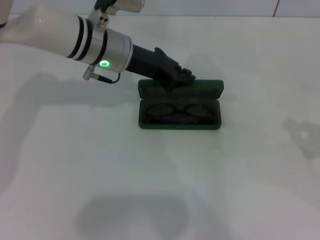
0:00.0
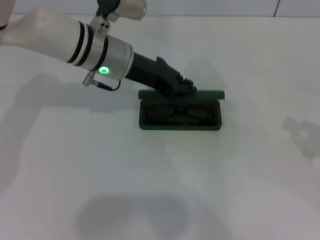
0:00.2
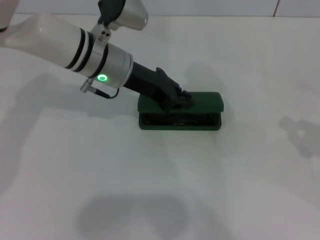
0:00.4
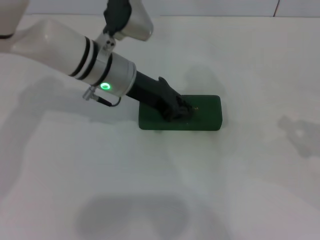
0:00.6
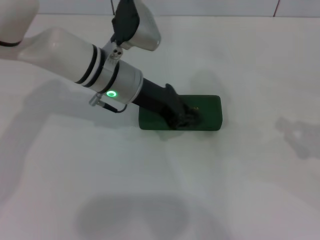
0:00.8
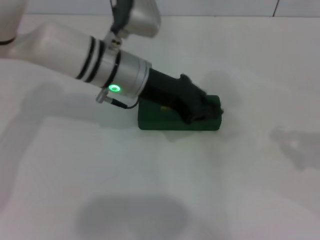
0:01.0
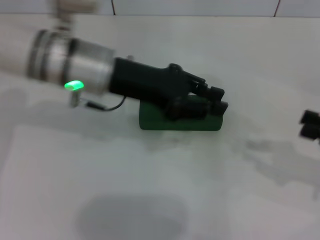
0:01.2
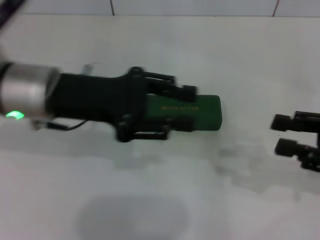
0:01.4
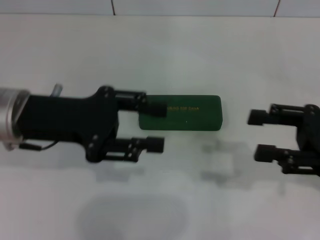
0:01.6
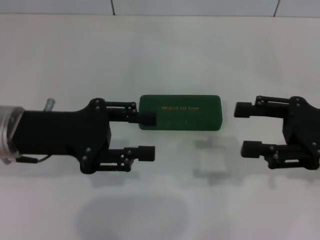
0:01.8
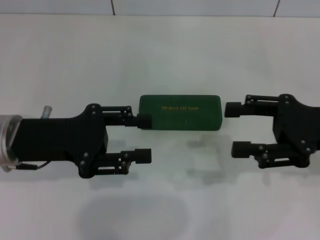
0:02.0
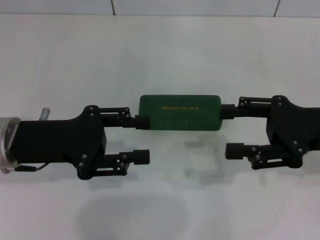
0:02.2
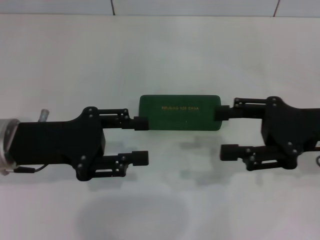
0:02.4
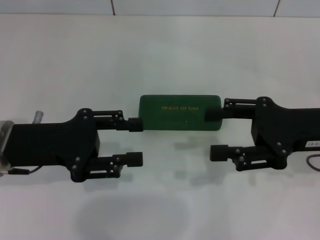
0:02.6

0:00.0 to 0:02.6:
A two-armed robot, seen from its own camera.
0:00.0 to 0:01.2: The left gripper travels backward by roughly 5 cm.
0:01.2 to 0:02.6: The left gripper shifts approximately 15 cm to the left, backward and downward, and opens up, while the right gripper heads to the left, covering some 10 cm, and opens up.

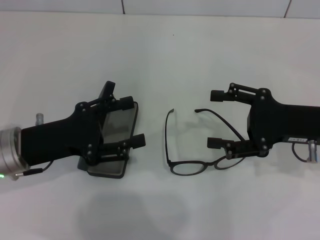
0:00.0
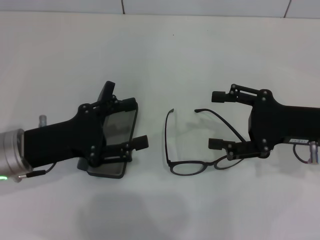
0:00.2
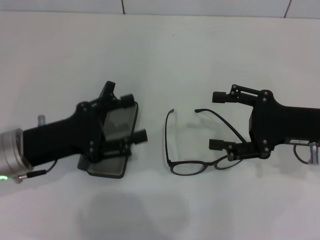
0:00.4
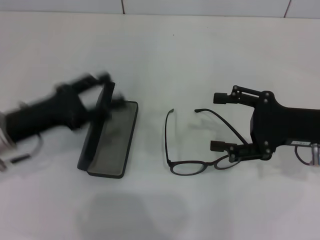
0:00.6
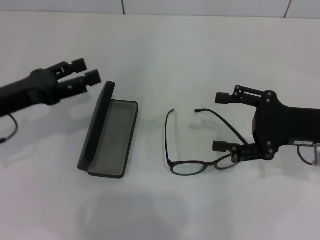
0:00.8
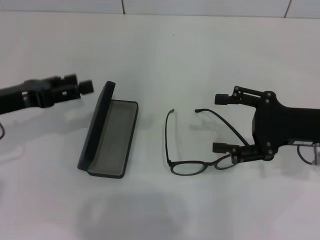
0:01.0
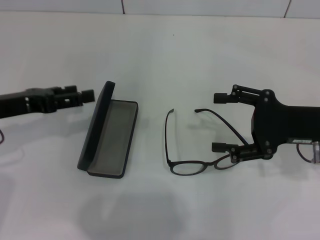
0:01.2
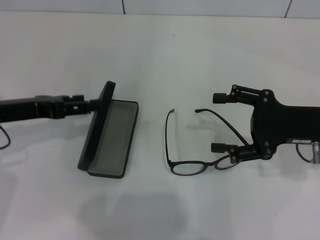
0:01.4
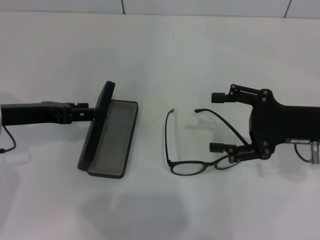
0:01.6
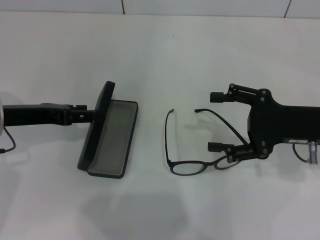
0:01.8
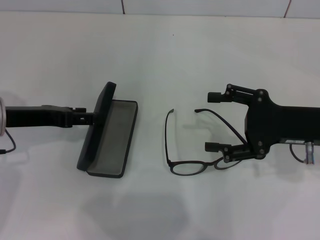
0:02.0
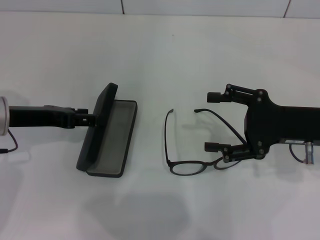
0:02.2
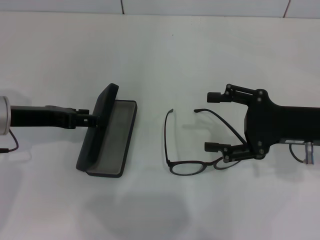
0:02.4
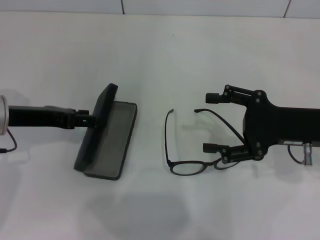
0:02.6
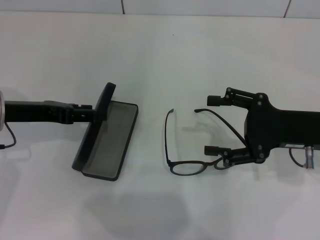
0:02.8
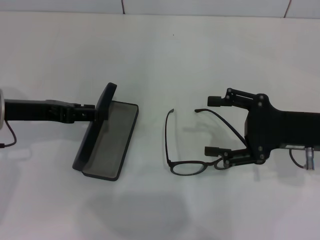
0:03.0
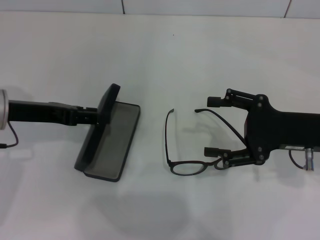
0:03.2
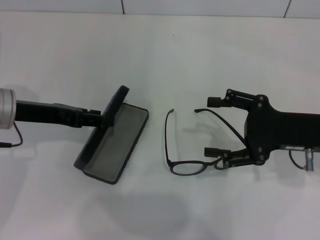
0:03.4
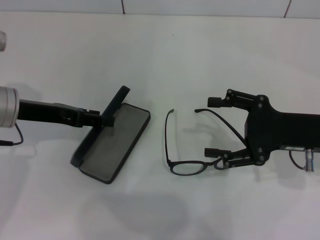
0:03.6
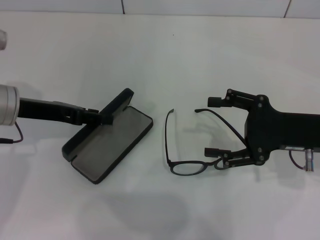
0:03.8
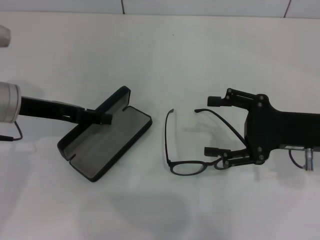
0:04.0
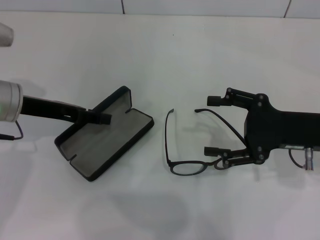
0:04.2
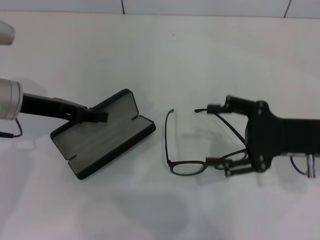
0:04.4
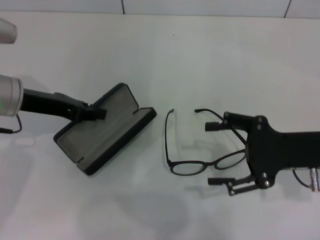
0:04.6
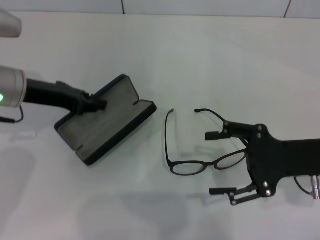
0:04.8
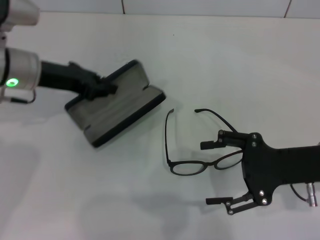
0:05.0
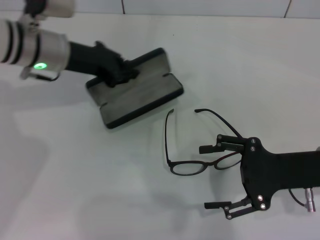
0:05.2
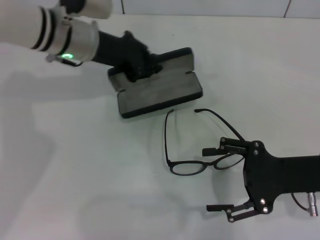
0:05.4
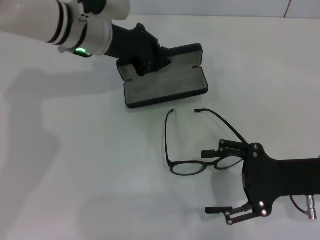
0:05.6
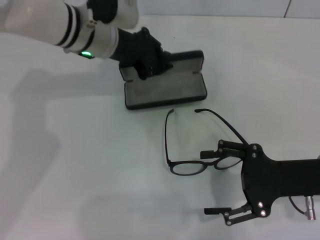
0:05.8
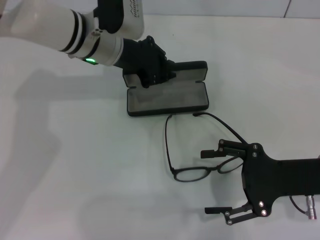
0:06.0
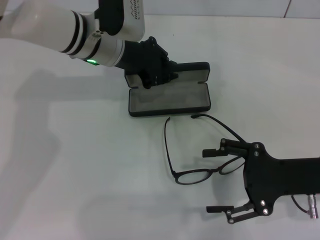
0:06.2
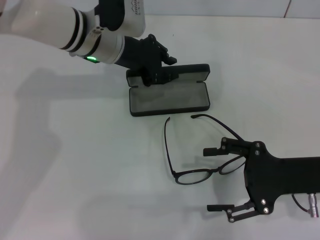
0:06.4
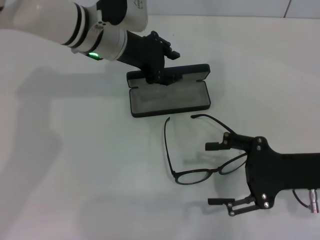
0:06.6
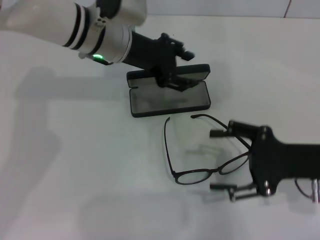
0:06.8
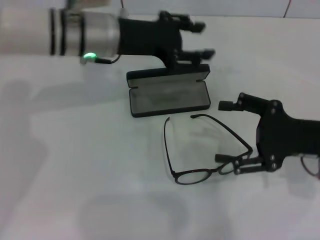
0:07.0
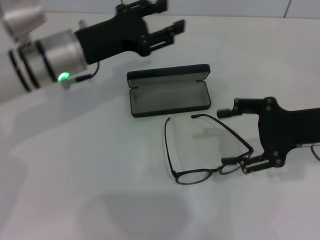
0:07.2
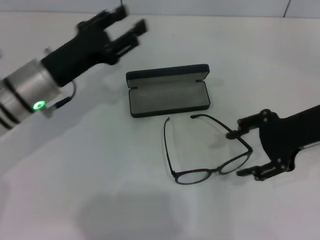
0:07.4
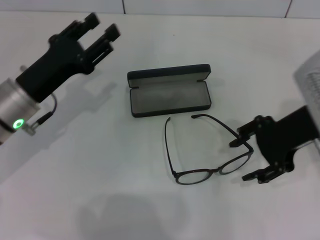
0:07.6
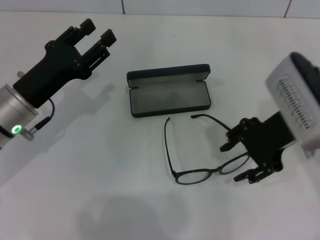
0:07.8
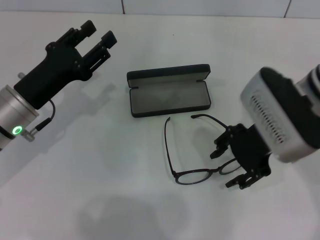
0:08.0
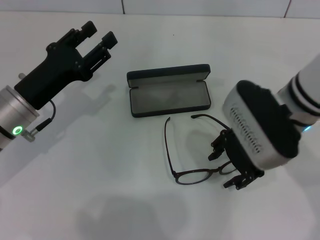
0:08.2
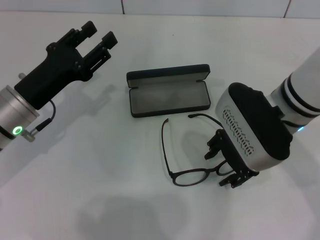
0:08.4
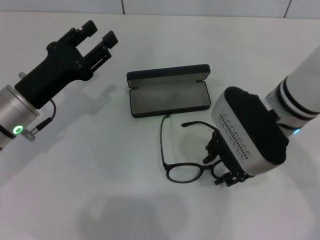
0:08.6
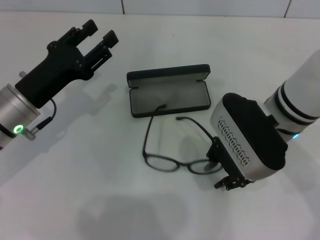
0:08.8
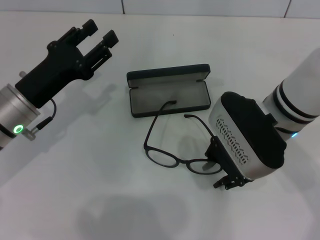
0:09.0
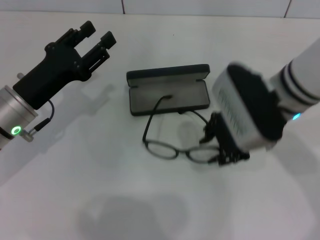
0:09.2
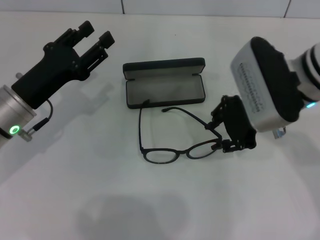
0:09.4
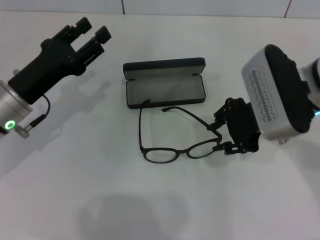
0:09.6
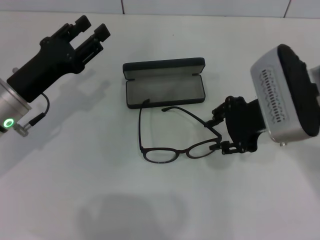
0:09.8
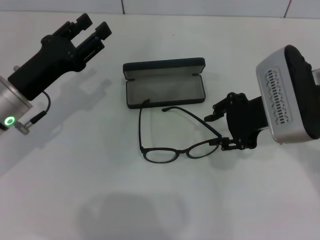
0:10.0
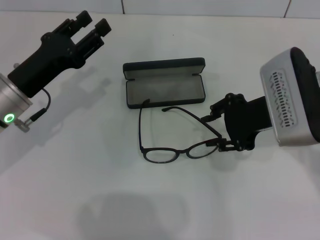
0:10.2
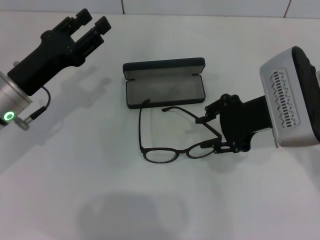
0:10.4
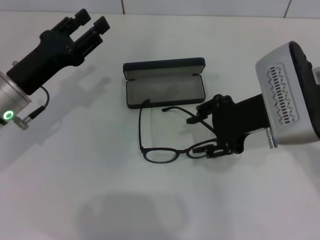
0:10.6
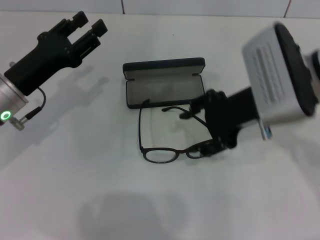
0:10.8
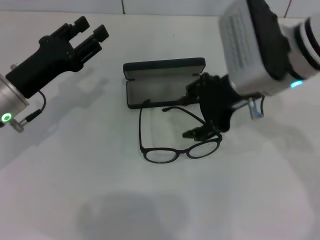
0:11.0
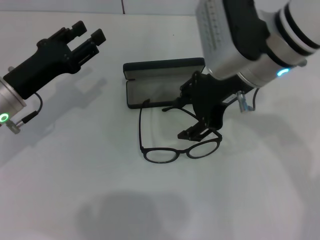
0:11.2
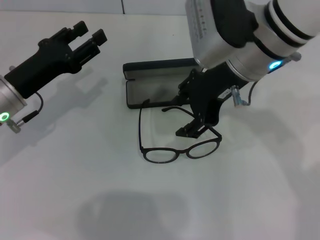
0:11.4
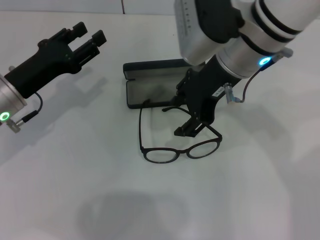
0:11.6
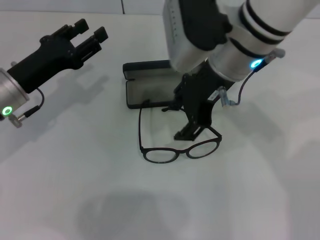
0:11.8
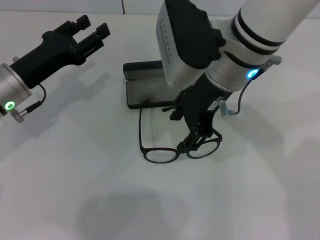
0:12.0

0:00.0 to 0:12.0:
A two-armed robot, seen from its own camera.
Step, 0:00.0 to 0:04.4: Grab the glasses case with your left hand.
Step, 0:04.6 to 0:06.4: Place the glasses case in the center of the table with your left hand.
0:00.0 to 0:01.6: The left gripper ends up approximately 5 cm from where it was.
0:01.6 to 0:04.4: The grippers stay close to where they were, moving slightly.
0:04.4 to 0:06.0: The left gripper heads to the right and forward, covering some 15 cm, and closes its fingers.
0:06.0 to 0:07.6: The right gripper travels upward and forward by some 10 cm. Meanwhile the left gripper shifts some 15 cm backward, to the left and downward, and opens up.
0:07.6 to 0:09.0: The right gripper is displaced to the left by about 10 cm, and closes its fingers.
0:09.0 to 0:10.4: The right gripper ends up roughly 5 cm from where it was.
0:10.4 to 0:12.0: The right gripper is displaced to the left and upward by roughly 10 cm.

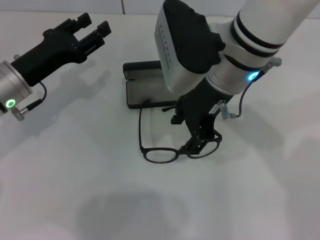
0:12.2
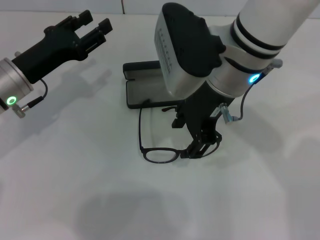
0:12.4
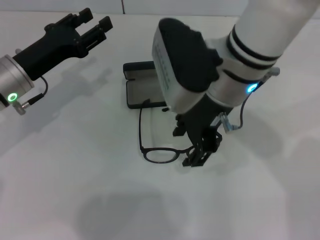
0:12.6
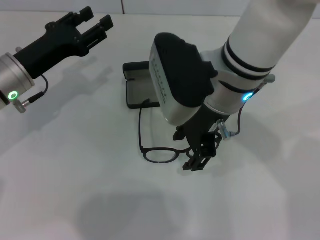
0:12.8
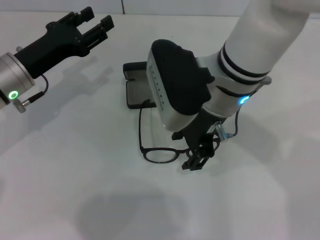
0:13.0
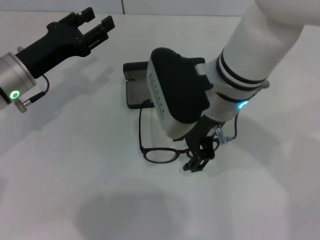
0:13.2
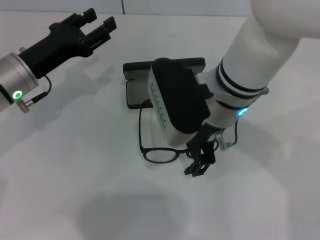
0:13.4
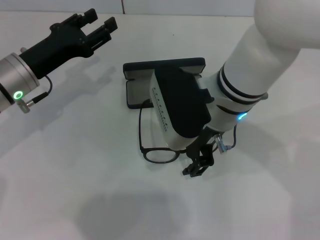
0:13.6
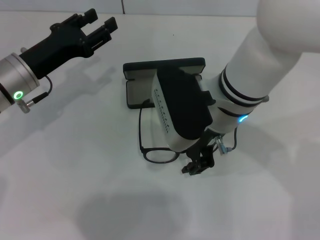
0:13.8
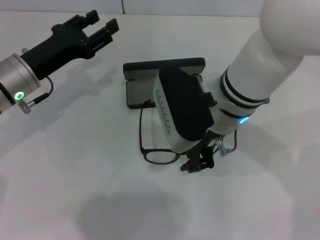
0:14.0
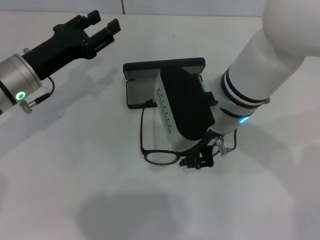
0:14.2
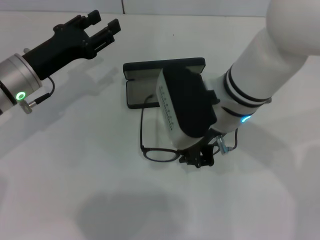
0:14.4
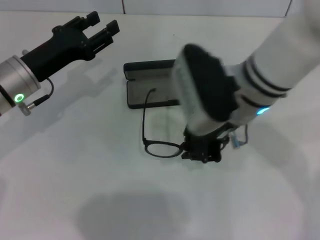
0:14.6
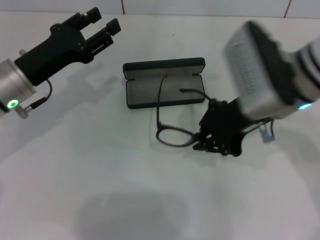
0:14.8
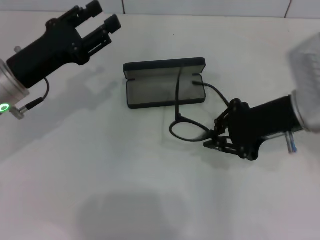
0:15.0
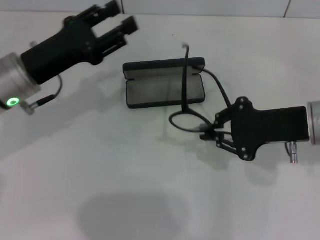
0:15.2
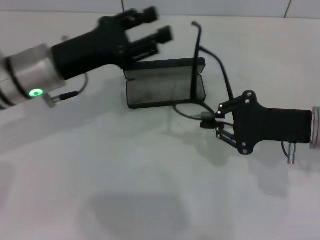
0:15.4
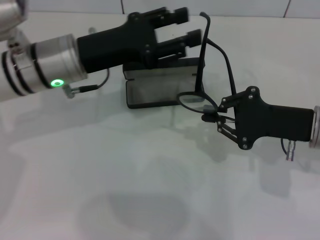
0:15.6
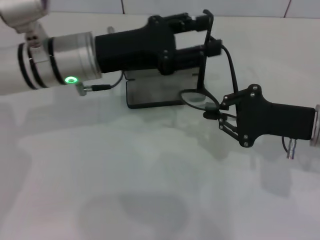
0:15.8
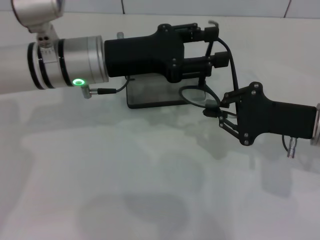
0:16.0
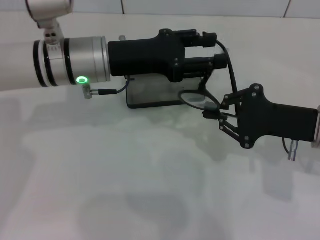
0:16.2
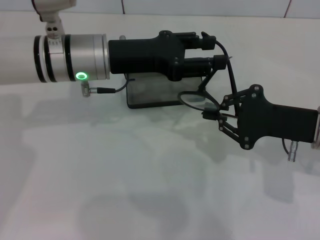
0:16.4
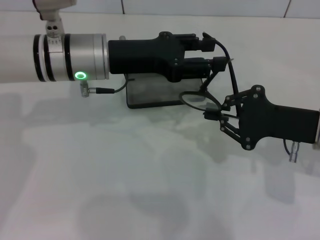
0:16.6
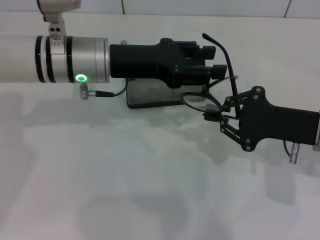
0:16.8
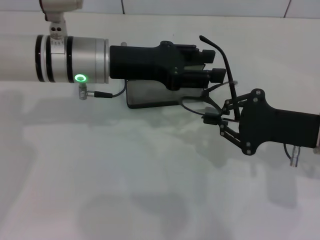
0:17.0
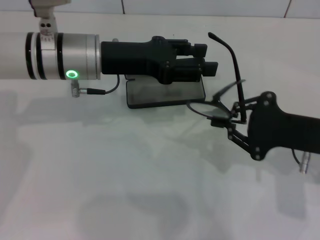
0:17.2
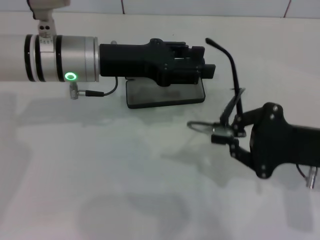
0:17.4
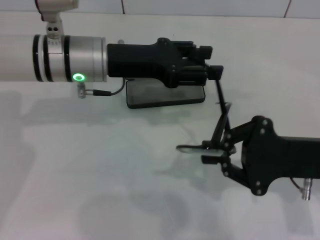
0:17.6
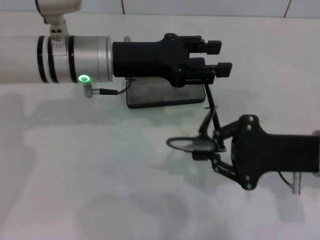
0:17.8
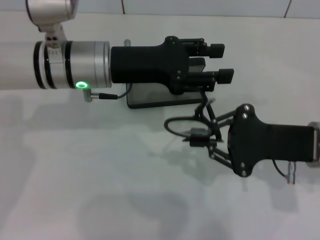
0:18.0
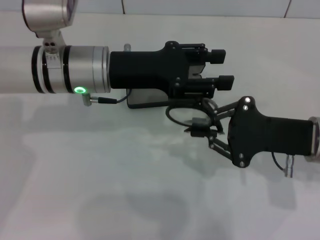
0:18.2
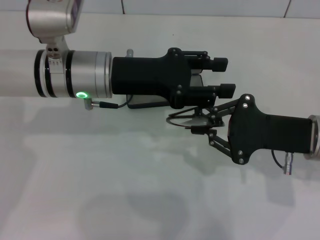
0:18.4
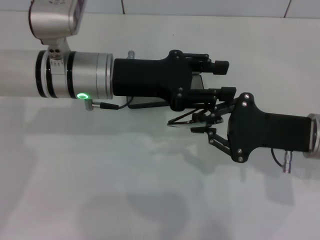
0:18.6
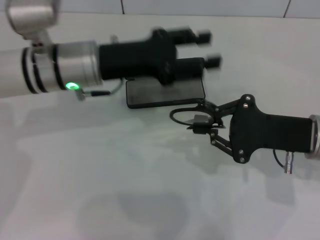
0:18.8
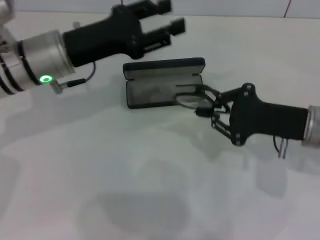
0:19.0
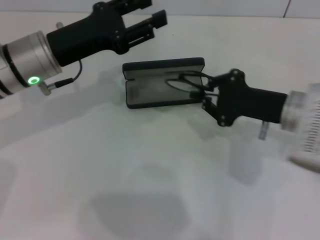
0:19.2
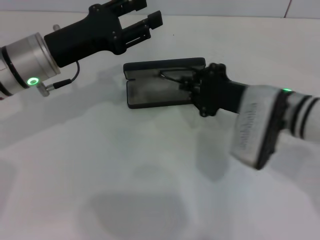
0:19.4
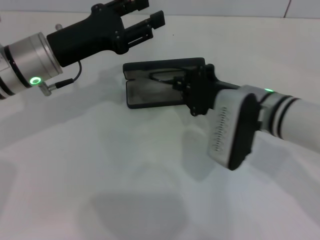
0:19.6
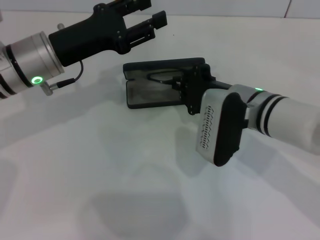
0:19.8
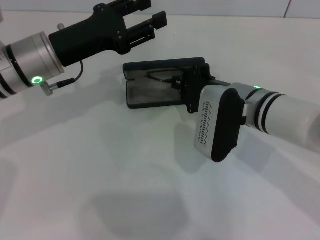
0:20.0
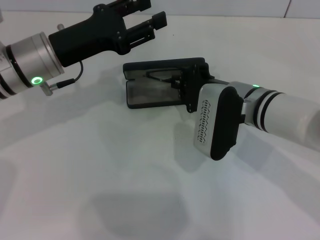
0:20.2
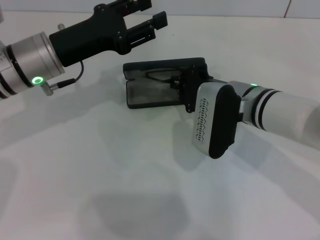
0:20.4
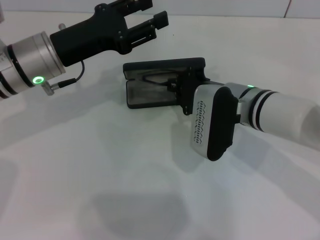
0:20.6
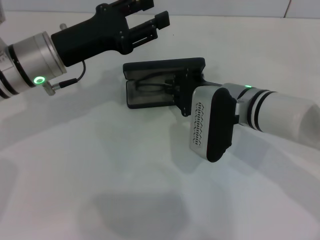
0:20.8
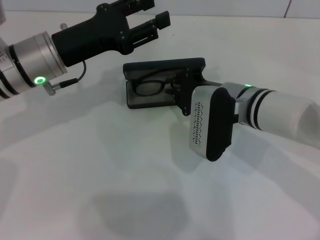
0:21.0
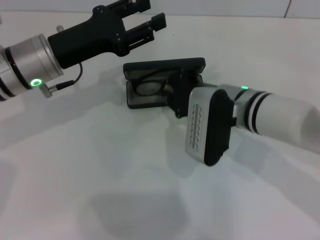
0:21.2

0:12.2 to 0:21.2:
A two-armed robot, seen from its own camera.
Step, 0:12.2 to 0:14.2: Grab the eyeglass frame with your right hand.
Step, 0:14.4 to 0:18.4: Fold the frame with your left hand.
Step, 0:18.6 to 0:21.0: Put the glasses into the case with your right hand.
0:12.2 to 0:13.8: The right gripper moves downward, roughly 5 cm.
0:13.8 to 0:15.2: The right gripper goes some 15 cm to the right, and closes its fingers.
0:15.2 to 0:16.6: The left gripper moves to the right, approximately 10 cm.
0:18.2 to 0:19.8: The left gripper travels to the left by some 5 cm. Meanwhile the right gripper moves to the left and forward, about 10 cm.
0:19.8 to 0:21.2: The grippers make only small movements.
